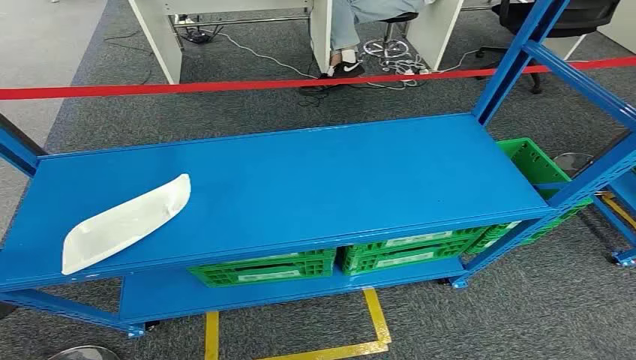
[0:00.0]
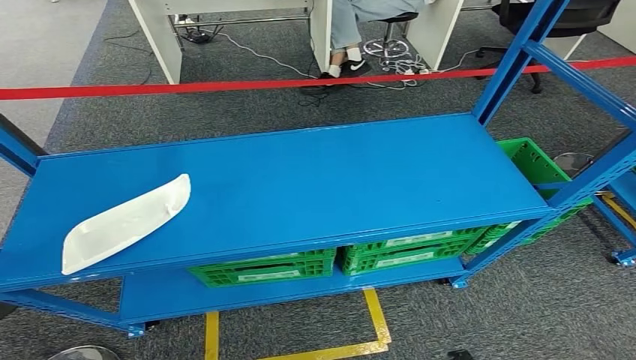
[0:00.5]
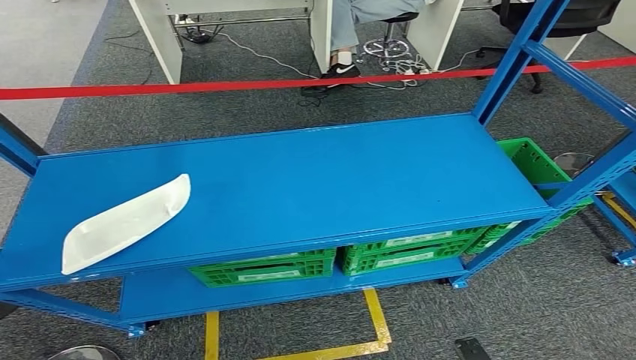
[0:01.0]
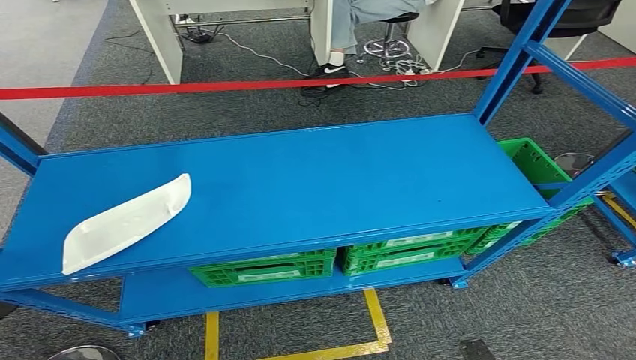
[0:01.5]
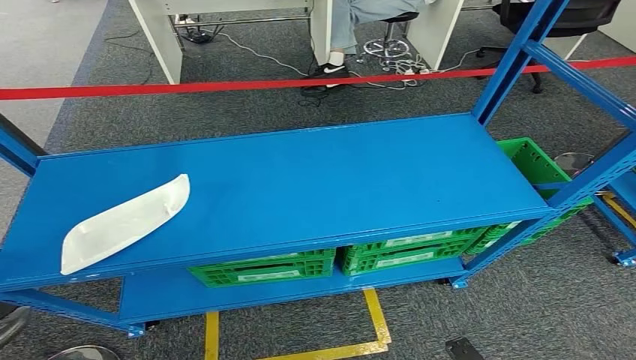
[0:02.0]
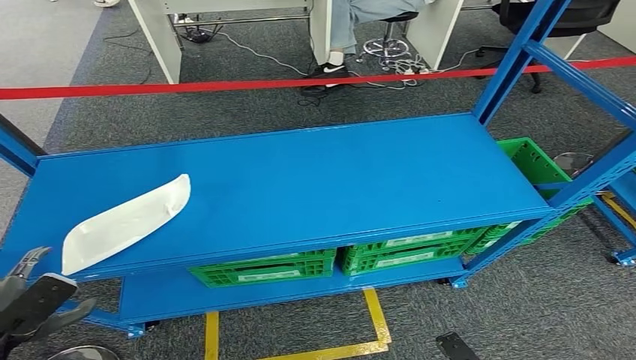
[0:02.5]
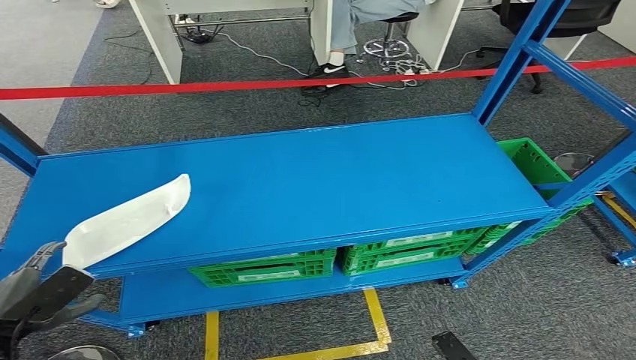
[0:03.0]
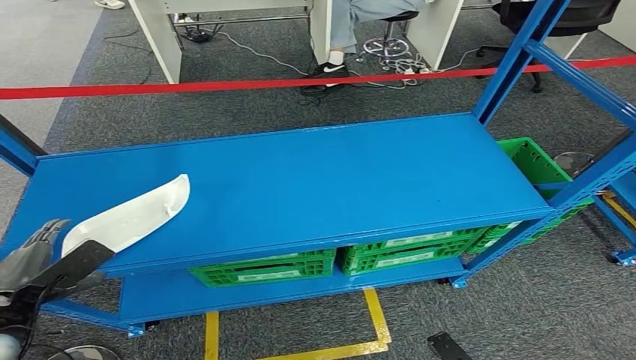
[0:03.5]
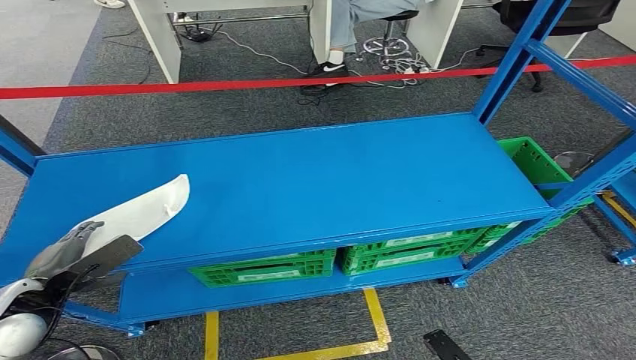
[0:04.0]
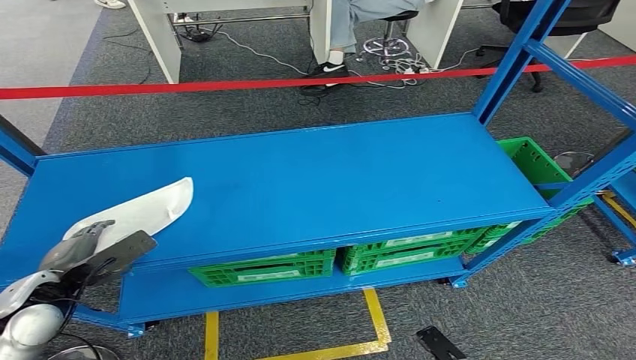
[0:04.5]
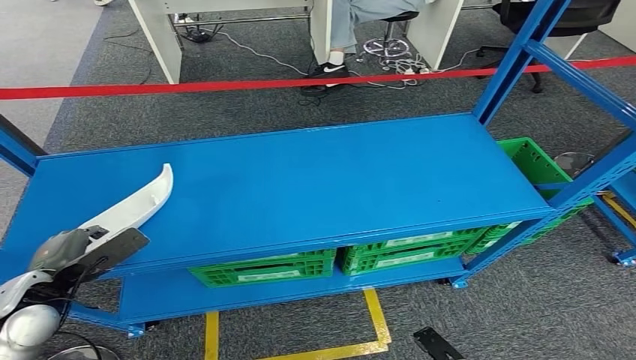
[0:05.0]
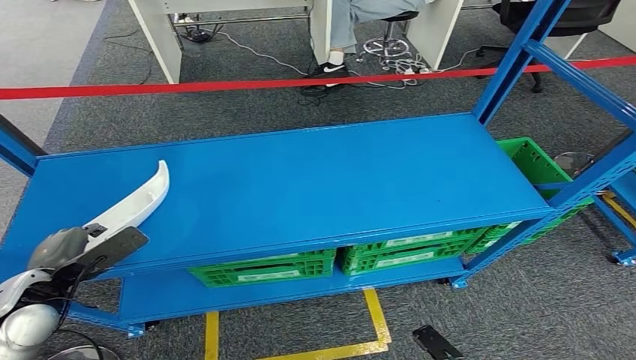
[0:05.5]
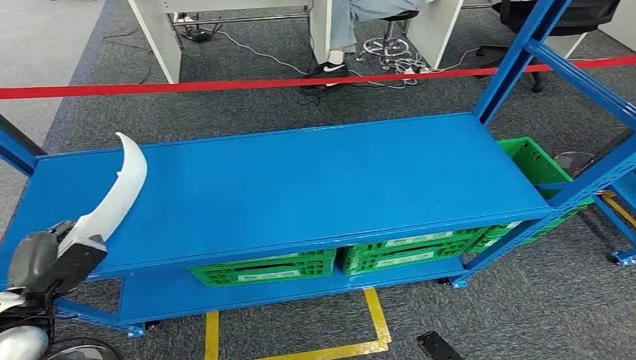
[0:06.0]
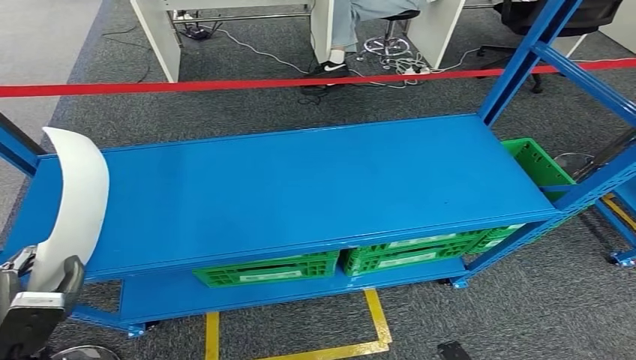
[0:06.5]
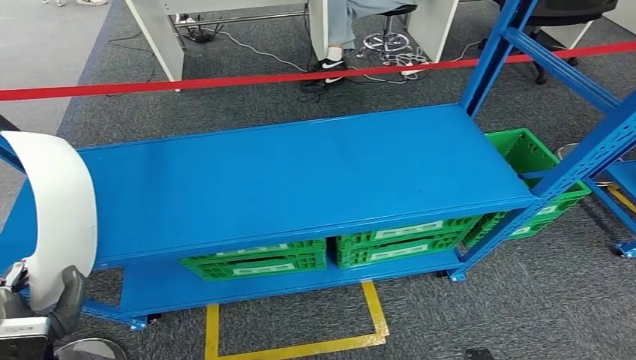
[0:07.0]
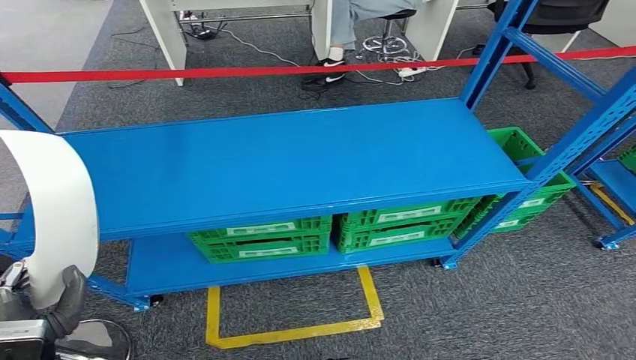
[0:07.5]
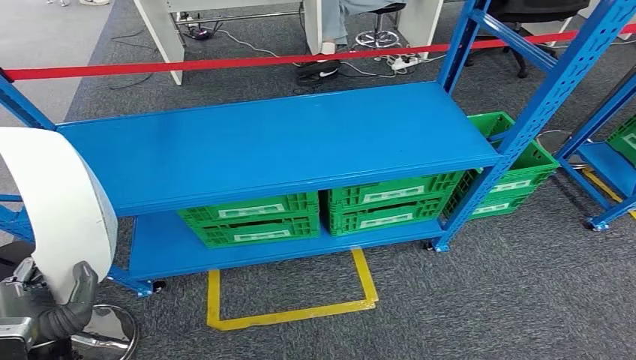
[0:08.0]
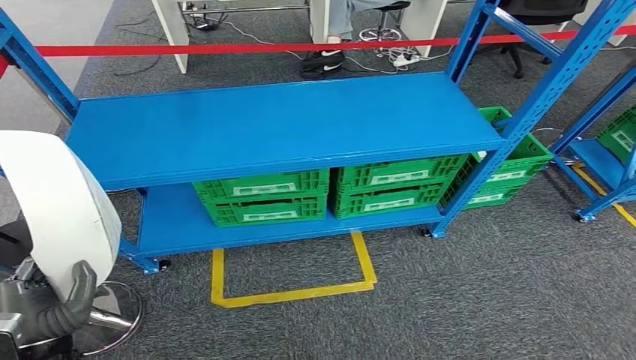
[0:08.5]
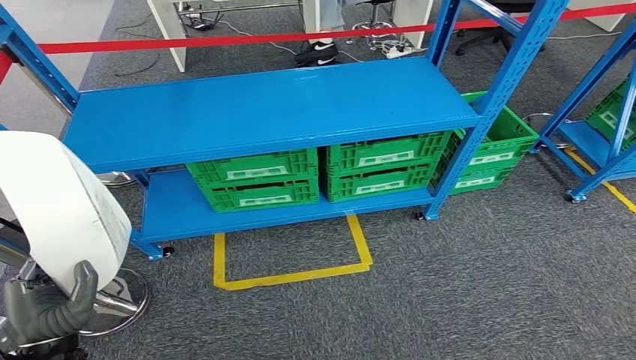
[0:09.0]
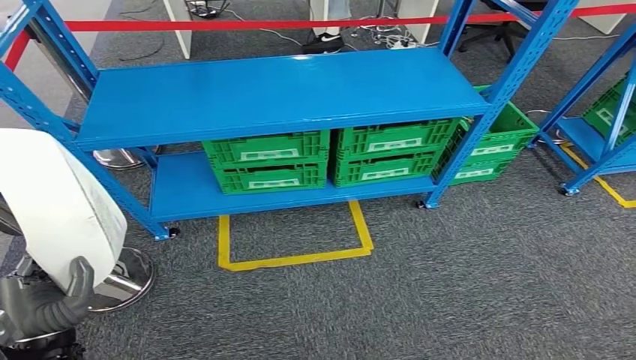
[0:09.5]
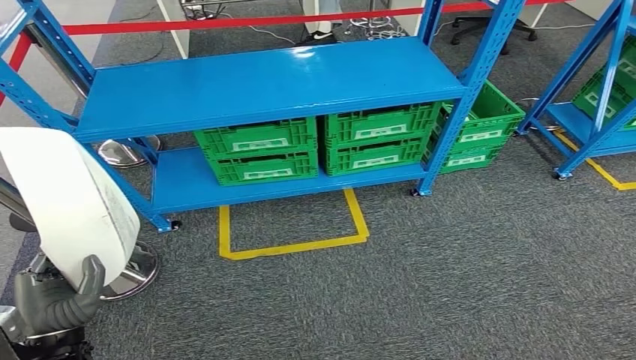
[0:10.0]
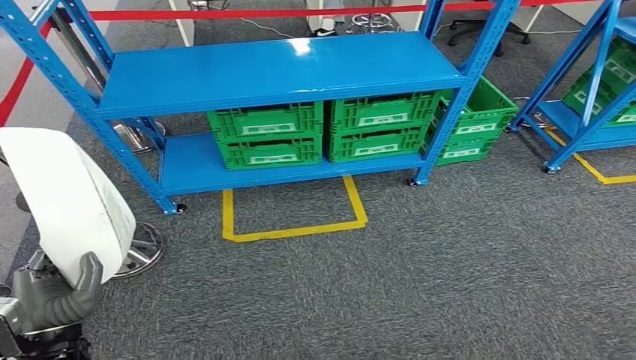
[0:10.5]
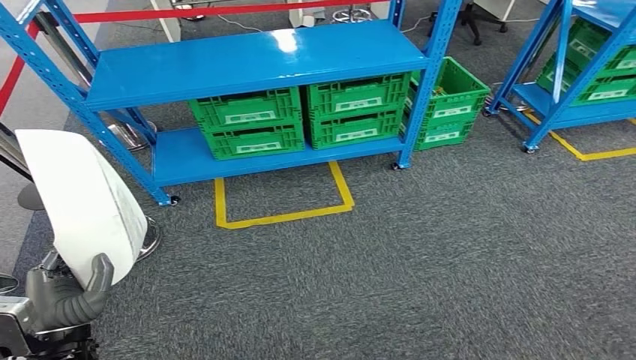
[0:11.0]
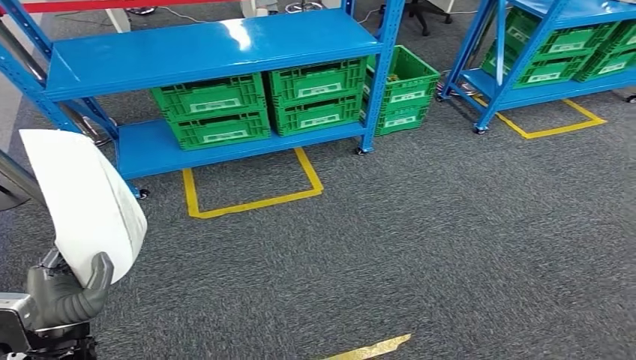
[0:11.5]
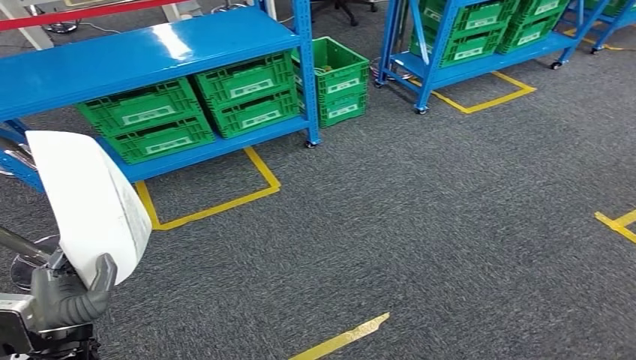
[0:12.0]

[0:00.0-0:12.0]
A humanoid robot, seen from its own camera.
Step, 0:00.0 to 0:10.0: Pick up the small component from the shelf.
0:02.0 to 0:04.0: The left hand shifts roughly 15 cm forward.

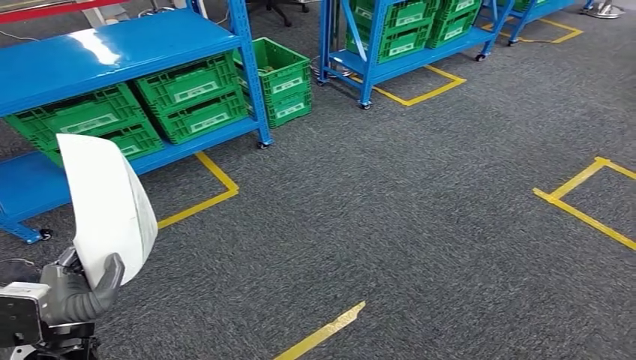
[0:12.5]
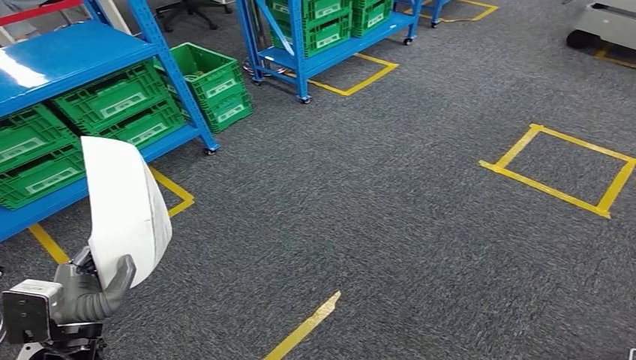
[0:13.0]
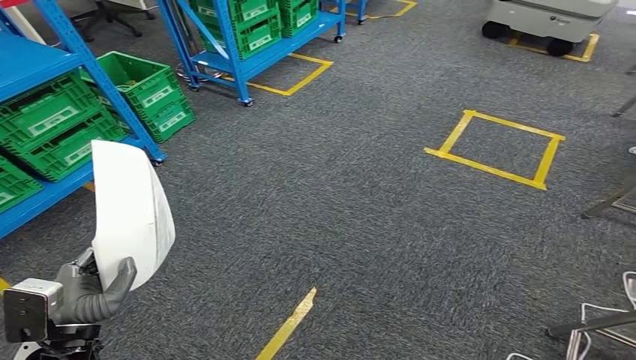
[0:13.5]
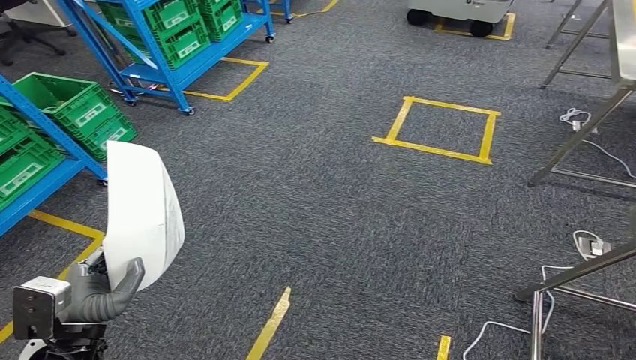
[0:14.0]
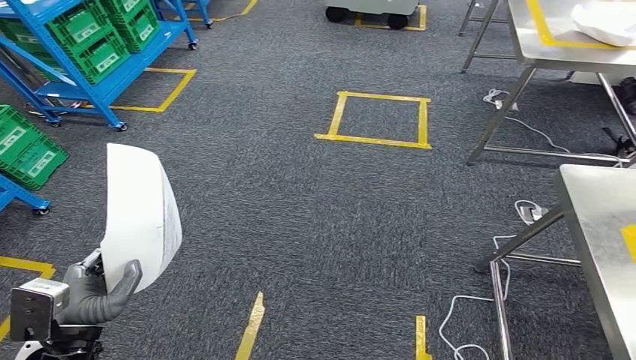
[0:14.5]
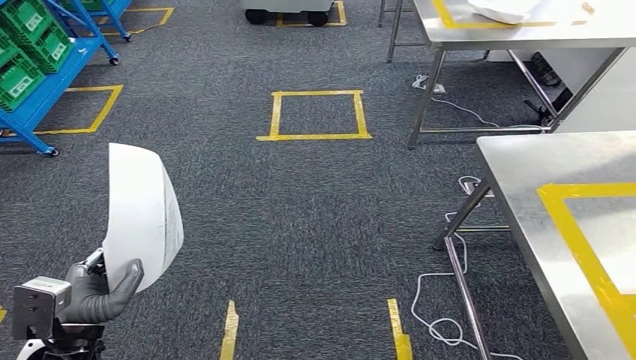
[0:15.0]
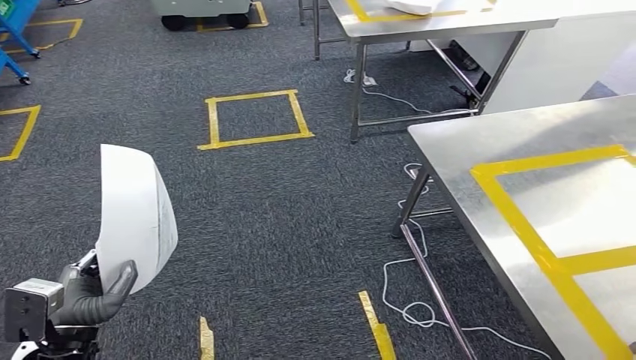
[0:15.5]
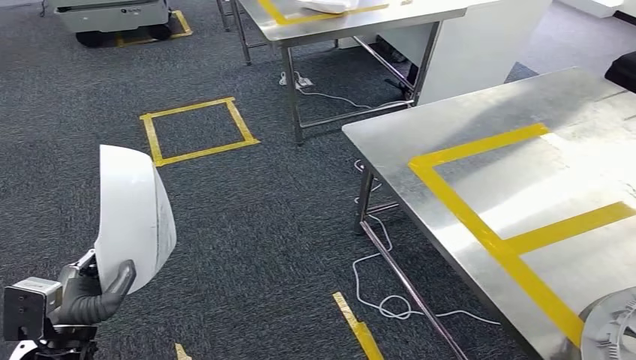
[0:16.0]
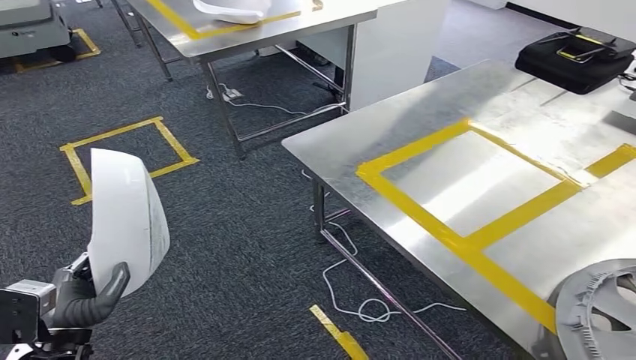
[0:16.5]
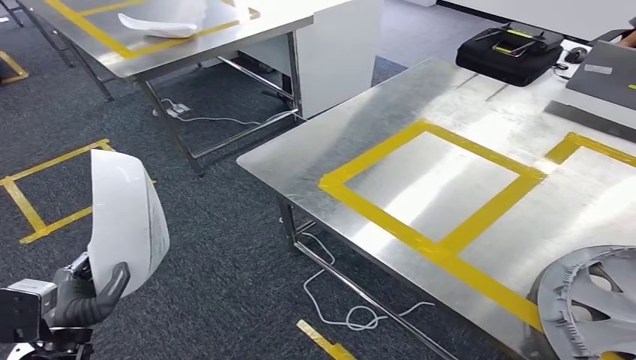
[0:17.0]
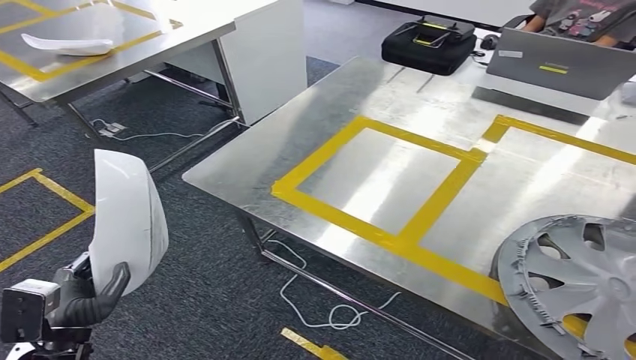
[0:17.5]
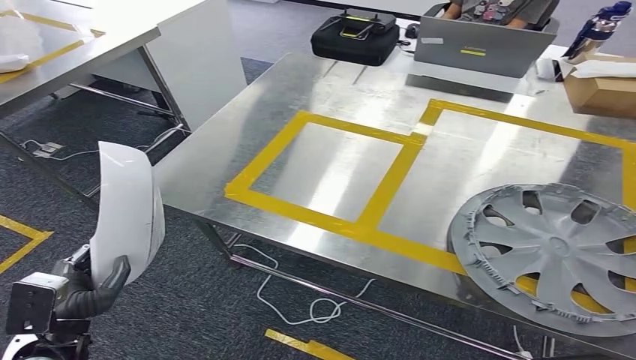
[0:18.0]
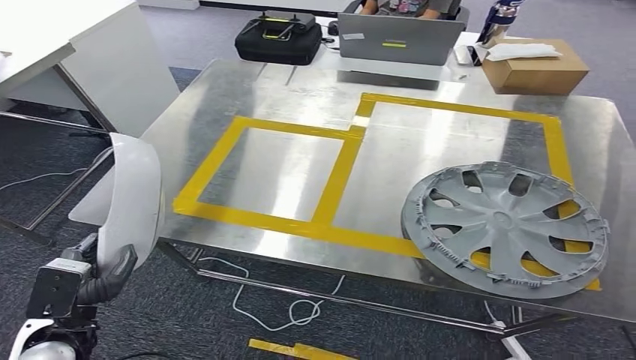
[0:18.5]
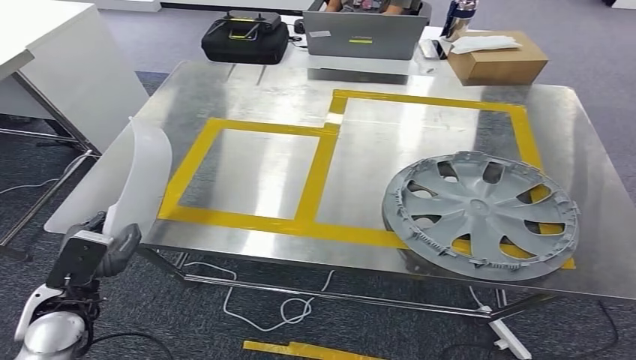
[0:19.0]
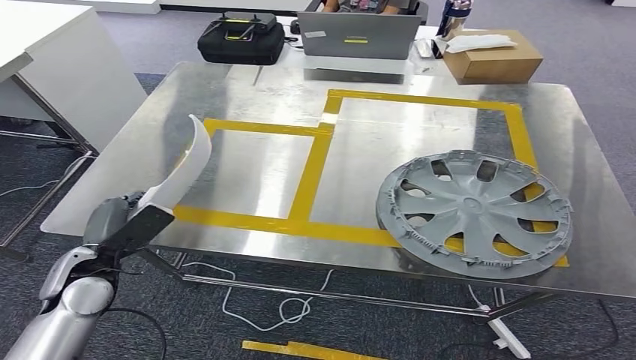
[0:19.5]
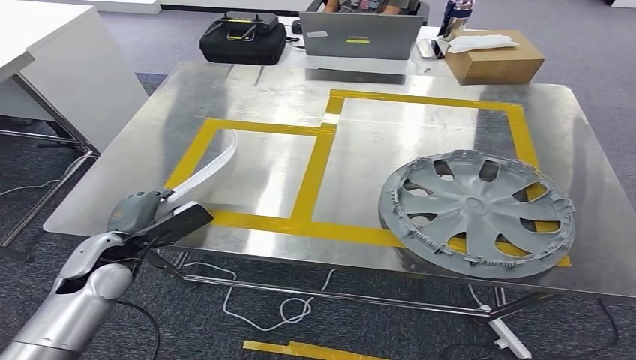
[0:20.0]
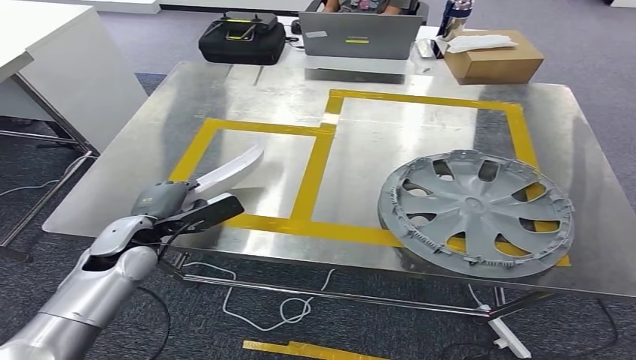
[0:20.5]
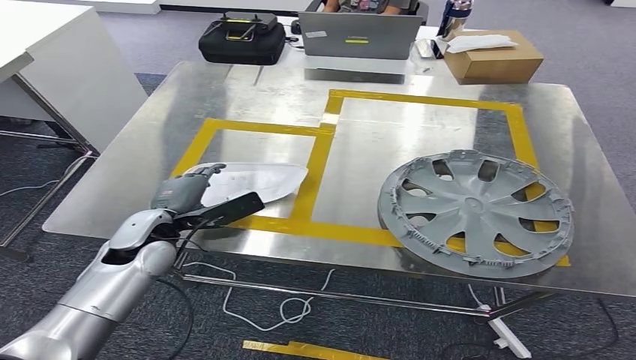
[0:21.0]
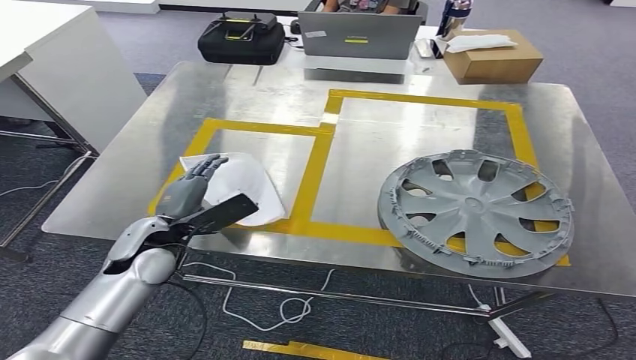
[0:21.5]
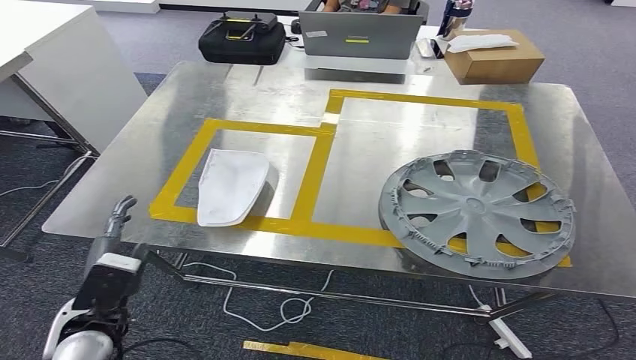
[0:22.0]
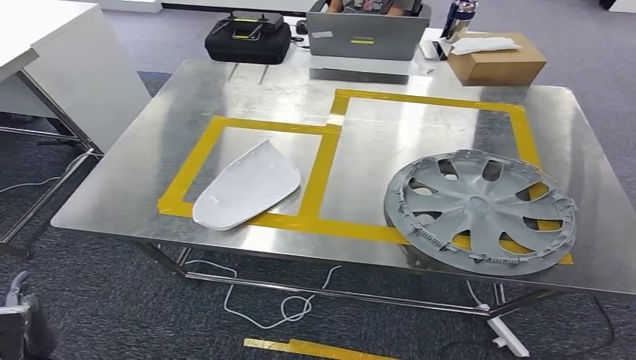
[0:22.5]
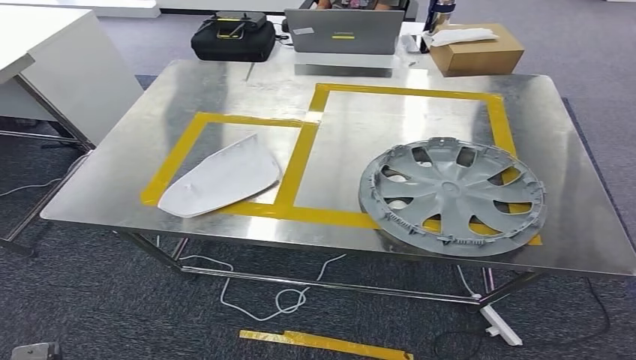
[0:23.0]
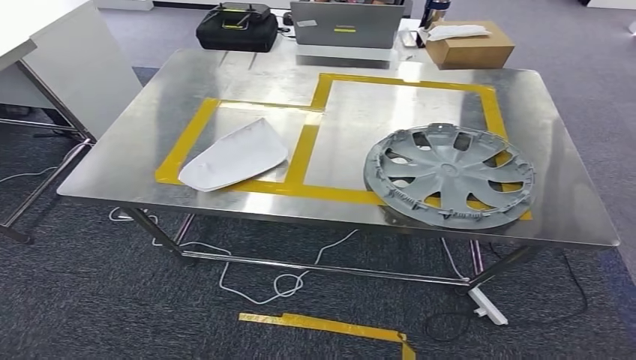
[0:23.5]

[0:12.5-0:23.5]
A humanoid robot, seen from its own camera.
Step, 0:12.5 to 0:18.5: Bring the small component to the front of the workbench.
0:20.0 to 0:21.5: The left hand is displaced to the right by approximately 5 cm.
